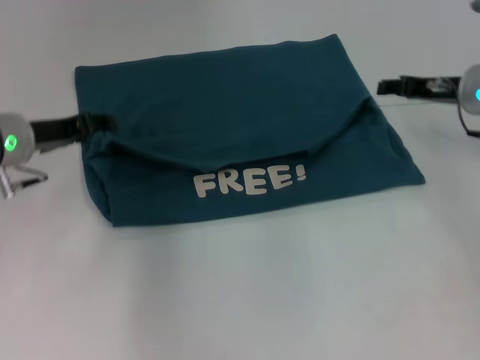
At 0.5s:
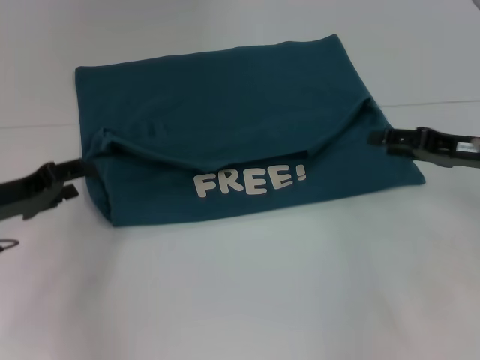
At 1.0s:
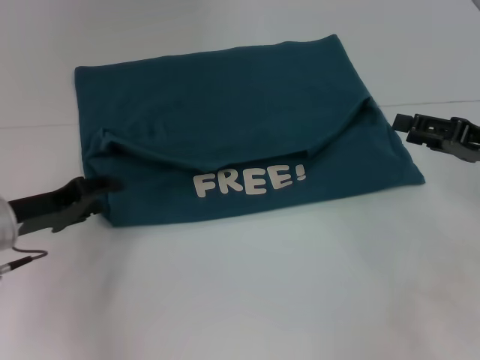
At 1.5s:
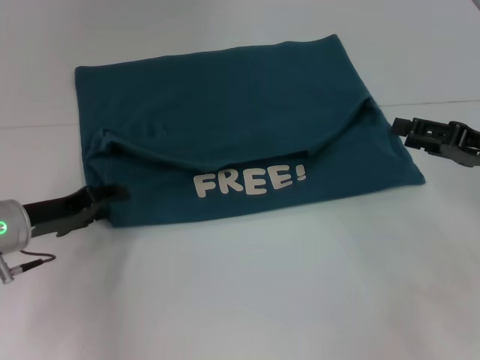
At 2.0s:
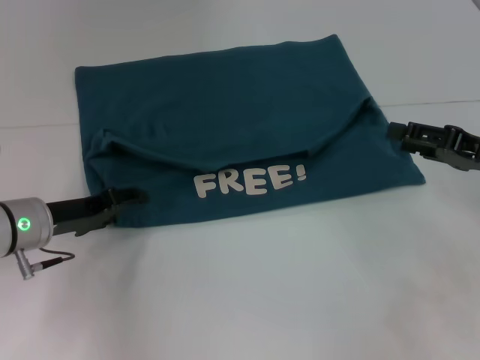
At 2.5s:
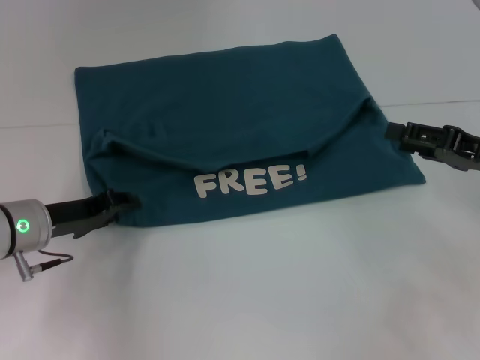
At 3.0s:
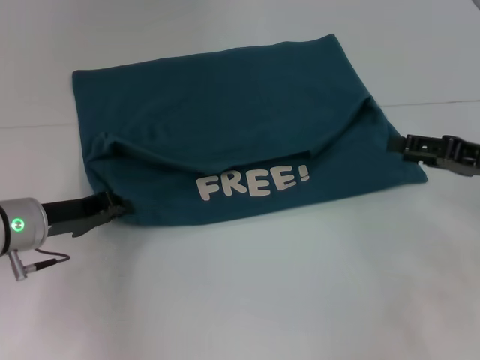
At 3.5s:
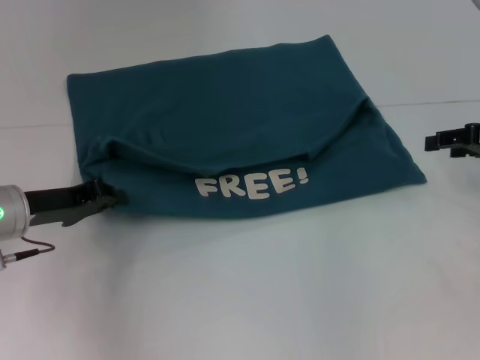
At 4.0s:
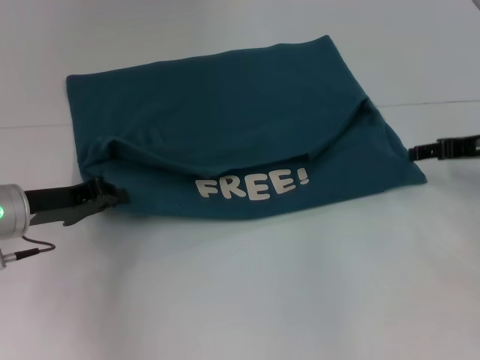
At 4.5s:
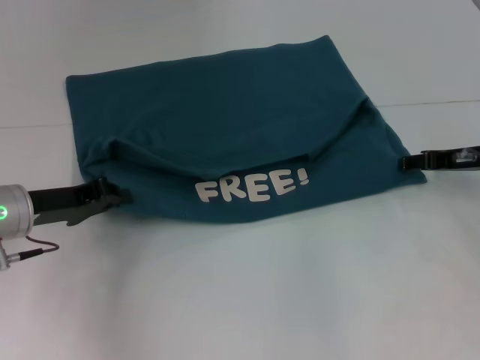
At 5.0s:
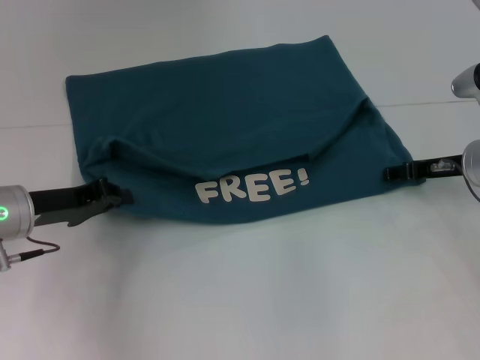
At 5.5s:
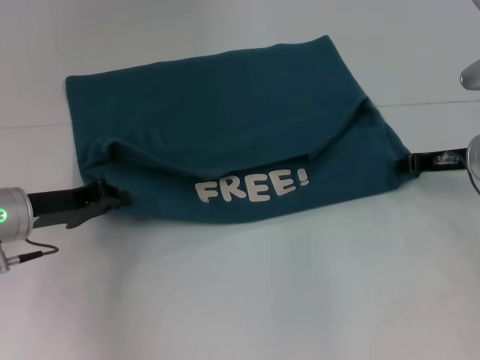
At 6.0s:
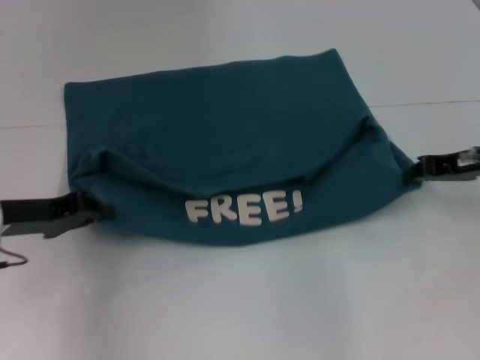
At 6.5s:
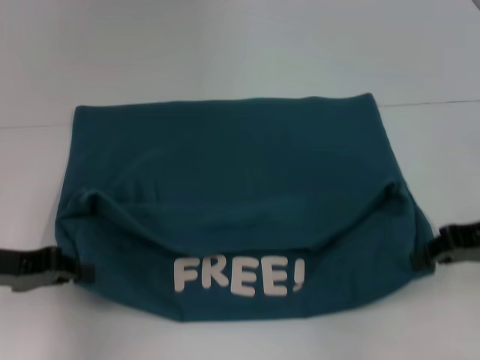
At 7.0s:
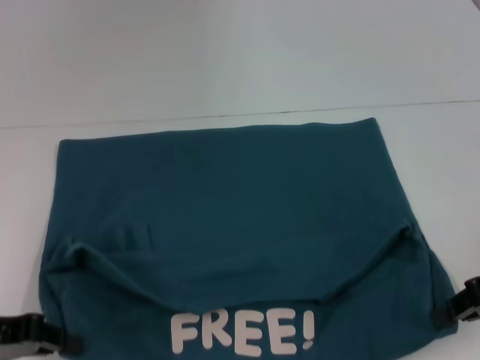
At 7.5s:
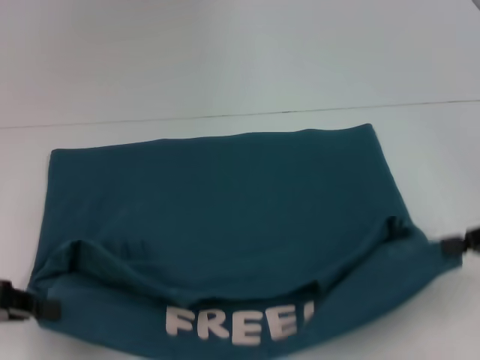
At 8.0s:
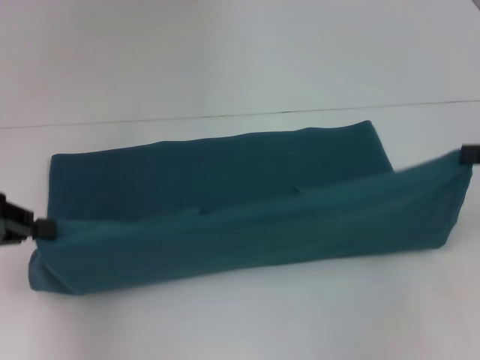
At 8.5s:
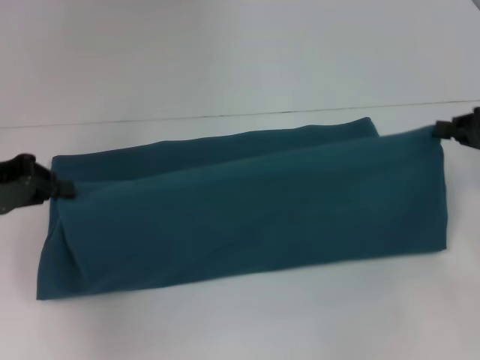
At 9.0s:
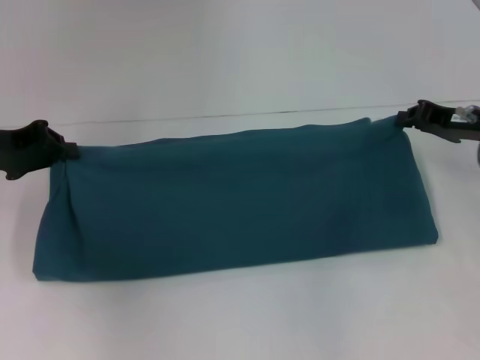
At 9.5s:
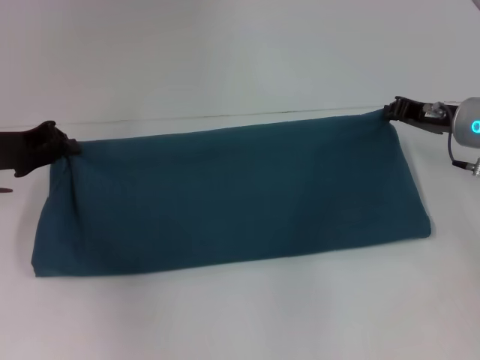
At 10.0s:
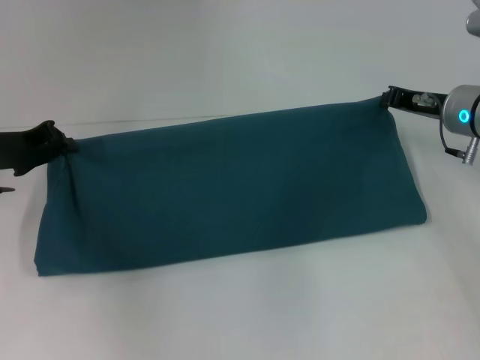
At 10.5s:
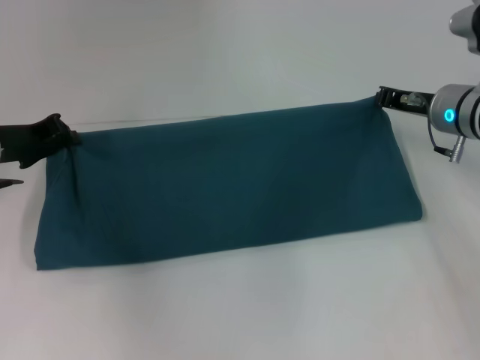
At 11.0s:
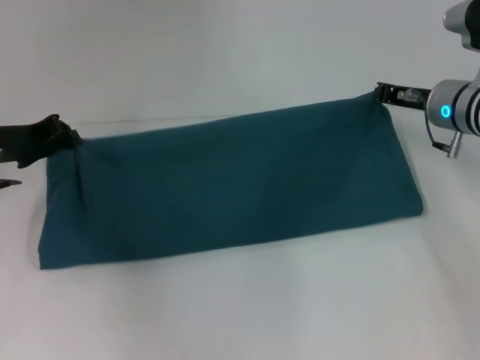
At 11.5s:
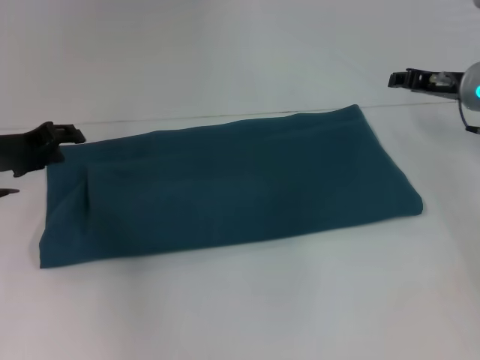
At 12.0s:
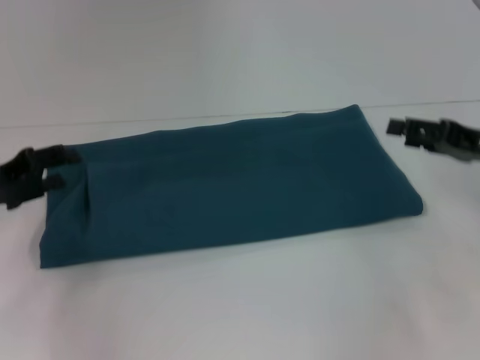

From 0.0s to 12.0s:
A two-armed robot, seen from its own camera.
Step, from 0.0s to 6.5s: Pull the clothes with your left hand.
Step, from 0.0s to 6.5s: Pull the clothes with your right hand.
Step, from 7.0s to 11.0s: Fold the clothes to the right.
From 0.0s to 2.0s: The left gripper moves downward and backward, about 10 cm. The right gripper moves backward, about 10 cm.
From 2.0s to 4.0s: The left gripper closes its fingers; the right gripper is displaced forward by about 5 cm.
From 4.0s to 6.0s: The right gripper closes up.
From 6.0s to 8.0s: The right gripper heads to the right, backward and upward, covering about 10 cm, while the left gripper goes approximately 10 cm upward and to the left.
From 8.0s to 10.0s: The left gripper travels forward and downward by roughly 10 cm; the right gripper shifts roughly 20 cm forward, to the left and downward.
From 10.0s to 12.0s: The right gripper travels backward and to the right by approximately 10 cm, and opens its fingers. Meanwhile the left gripper heads backward, covering about 5 cm, and opens up.

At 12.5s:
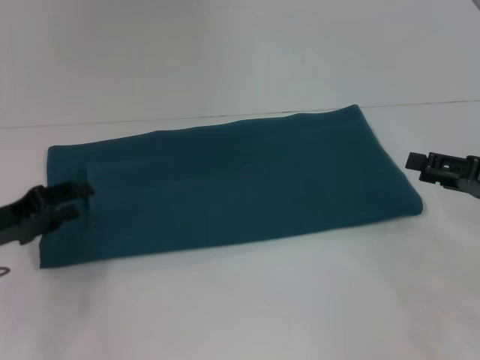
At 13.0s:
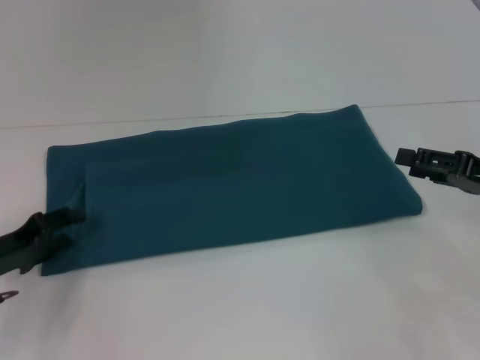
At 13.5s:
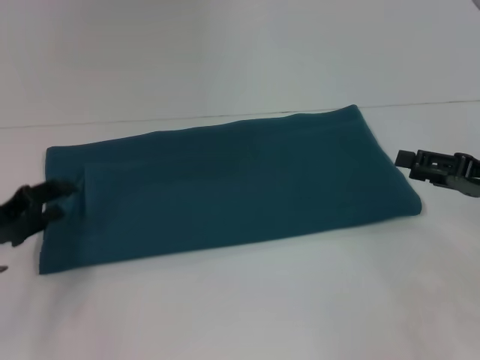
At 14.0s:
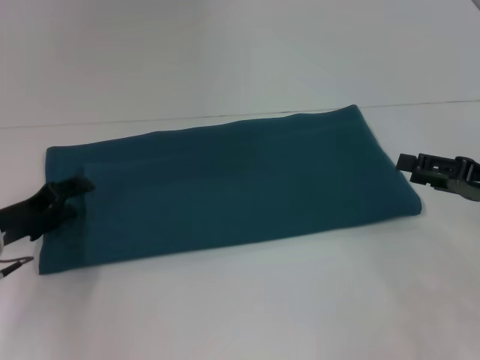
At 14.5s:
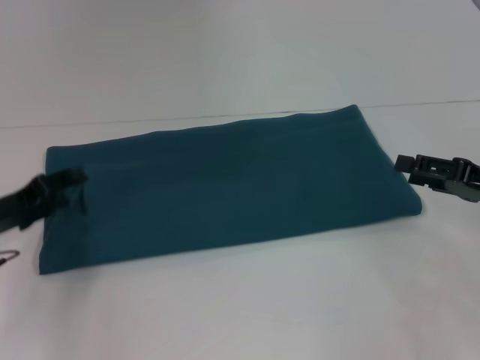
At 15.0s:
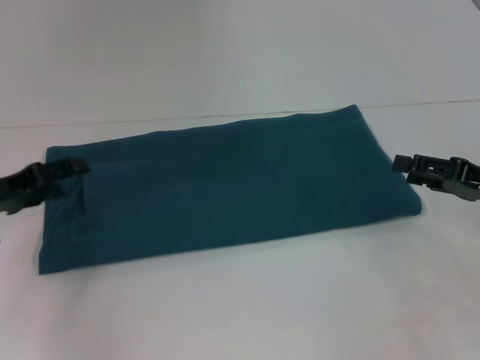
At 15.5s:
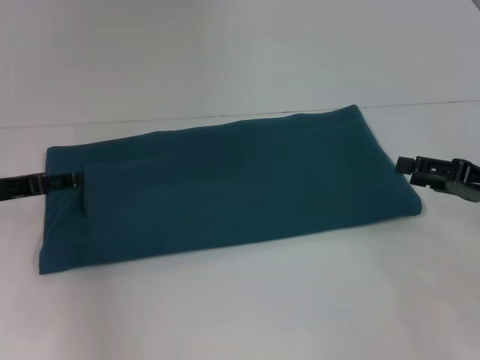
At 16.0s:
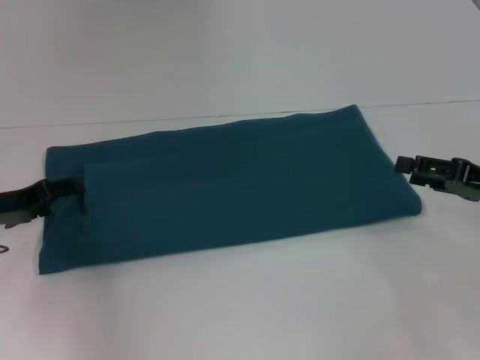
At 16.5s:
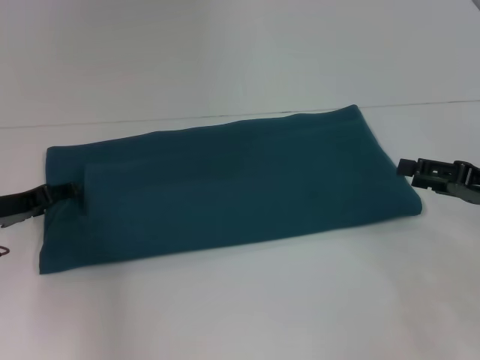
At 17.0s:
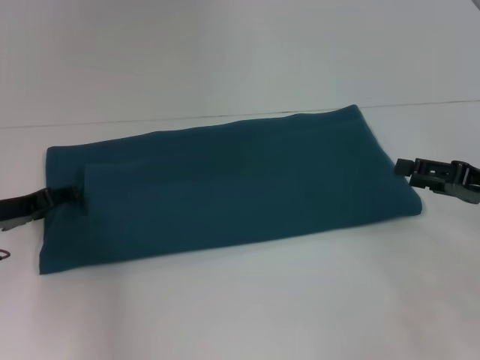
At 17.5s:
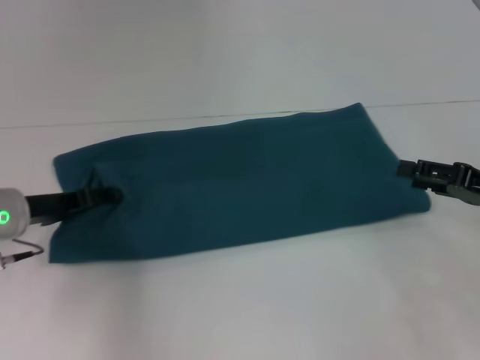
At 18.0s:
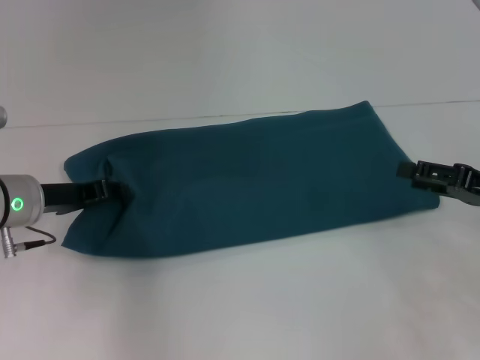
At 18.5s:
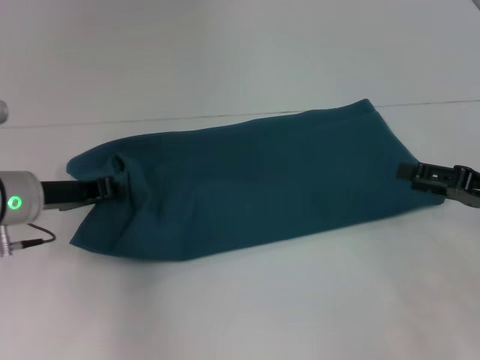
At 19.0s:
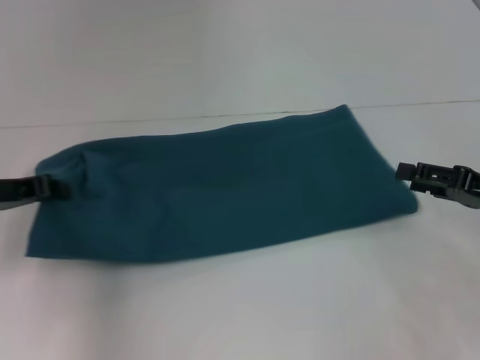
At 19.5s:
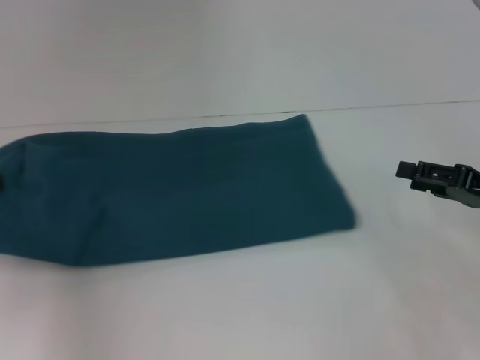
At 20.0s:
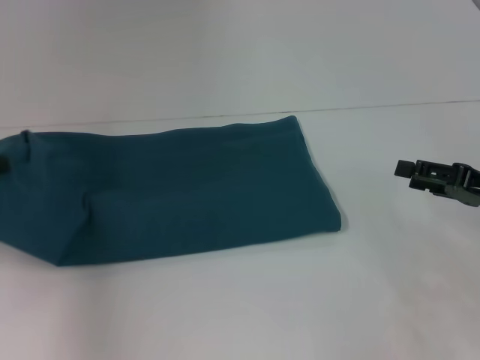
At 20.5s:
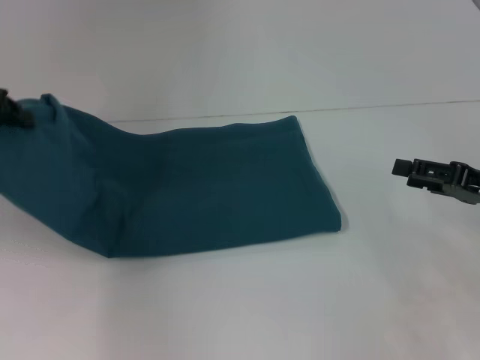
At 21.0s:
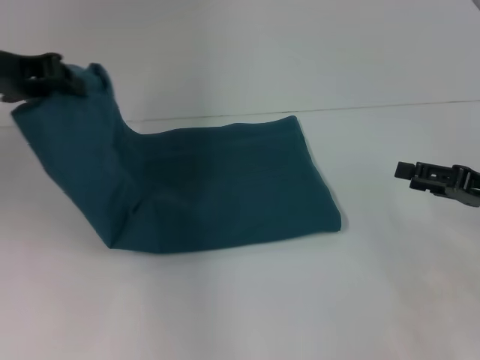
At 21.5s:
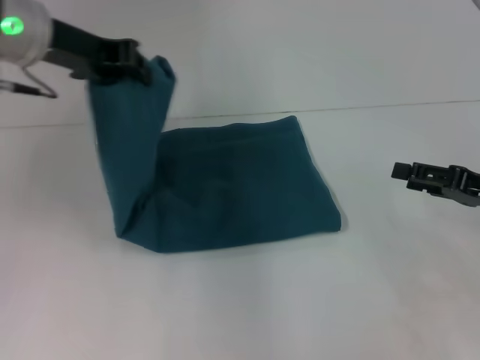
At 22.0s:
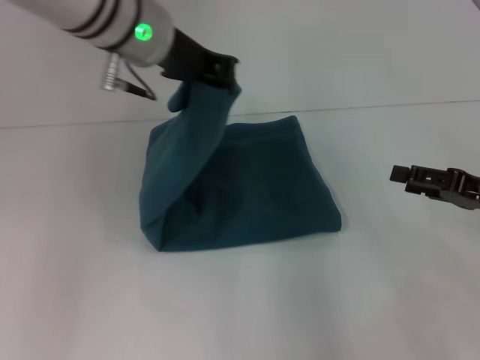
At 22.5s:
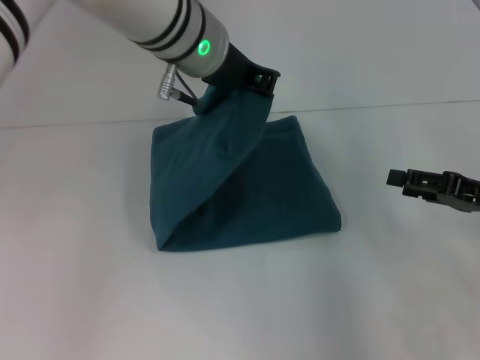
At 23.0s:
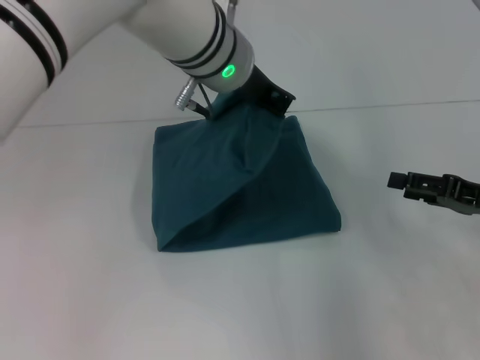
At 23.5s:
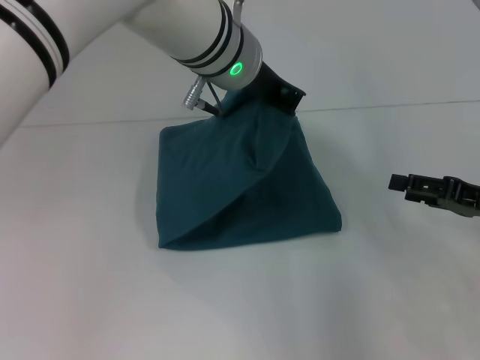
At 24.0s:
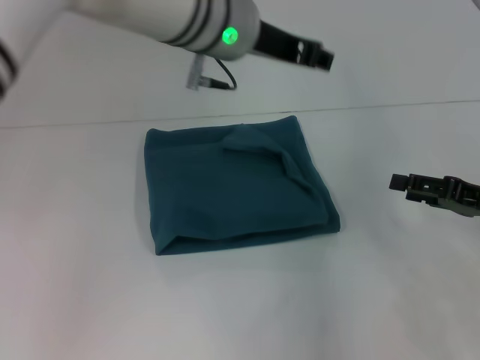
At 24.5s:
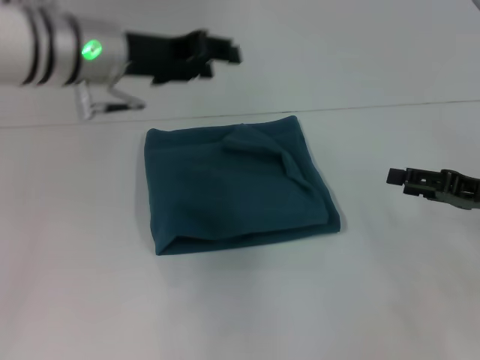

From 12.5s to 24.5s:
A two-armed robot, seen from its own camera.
Step, from 12.5s to 23.5s: Fold the clothes to the left.
From 12.5s to 14.5s: The grippers make only small movements.
From 16.5s to 18.5s: The left gripper shifts about 5 cm to the right, and closes.
From 18.5s to 20.5s: The left gripper shifts about 15 cm upward and to the left.
From 20.5s to 22.5s: The left gripper goes about 25 cm to the right.
From 22.5s to 24.5s: The left gripper moves to the left, approximately 10 cm, and opens up.

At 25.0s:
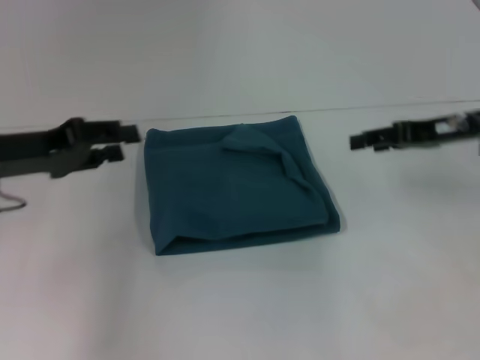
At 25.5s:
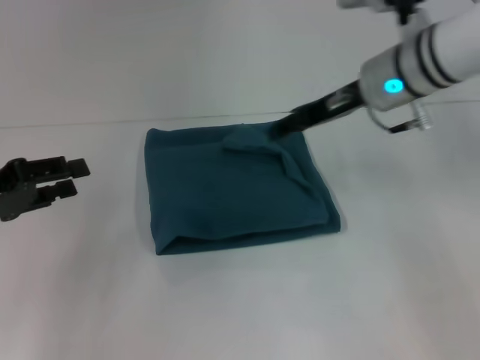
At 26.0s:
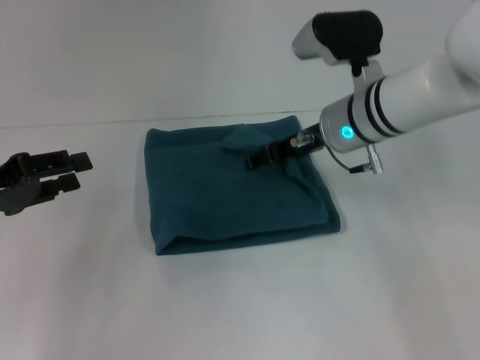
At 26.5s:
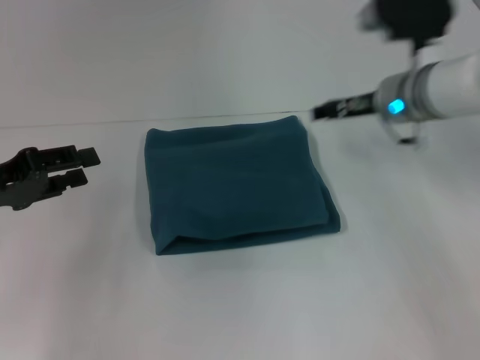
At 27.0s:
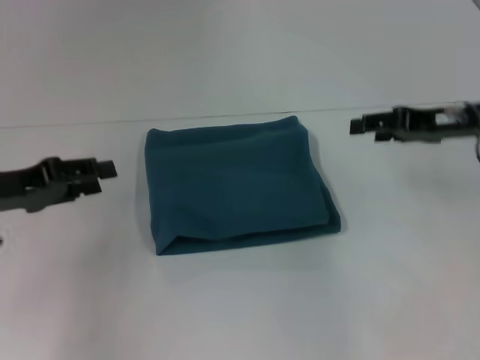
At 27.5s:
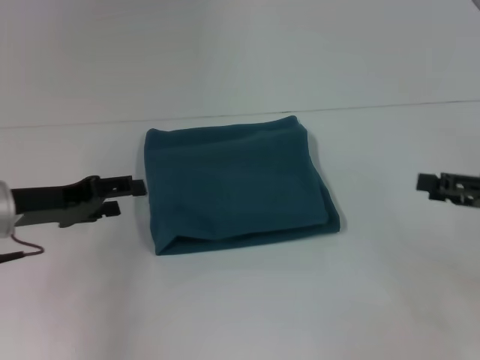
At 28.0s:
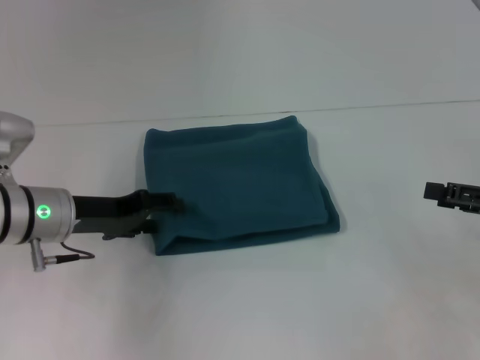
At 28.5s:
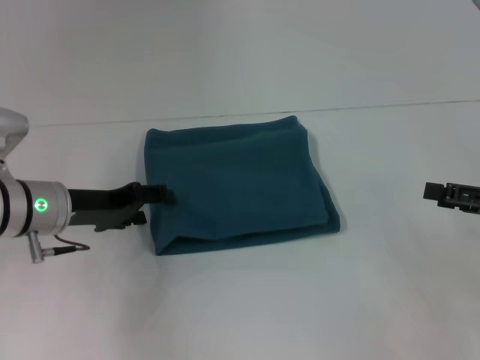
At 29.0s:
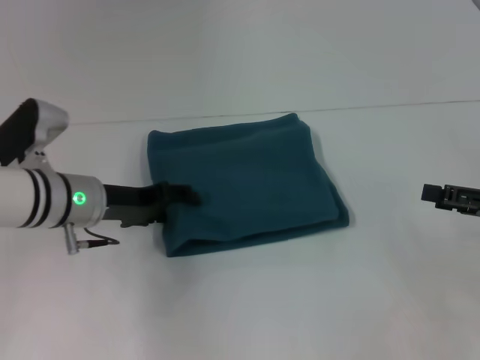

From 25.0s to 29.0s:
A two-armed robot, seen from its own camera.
From 25.0s to 27.0s: The right gripper moves roughly 15 cm to the left and comes back.
From 27.0s to 29.0s: The left gripper travels to the right, downward and forward by roughly 15 cm; the right gripper travels backward, to the right and downward by roughly 15 cm.
